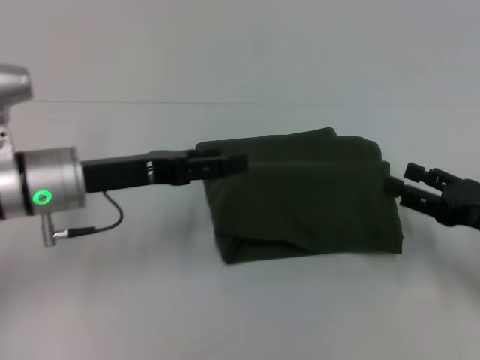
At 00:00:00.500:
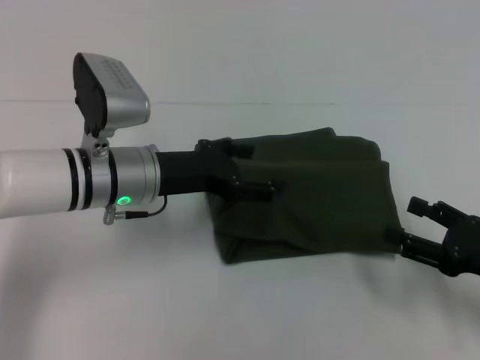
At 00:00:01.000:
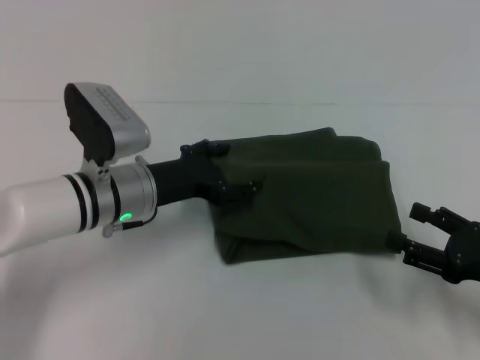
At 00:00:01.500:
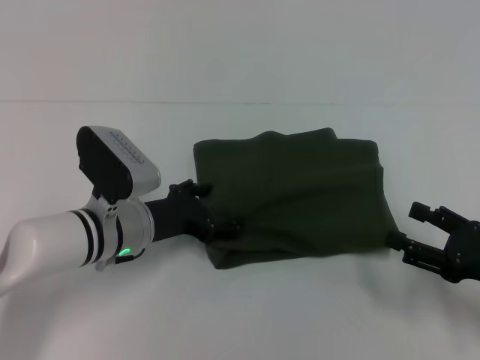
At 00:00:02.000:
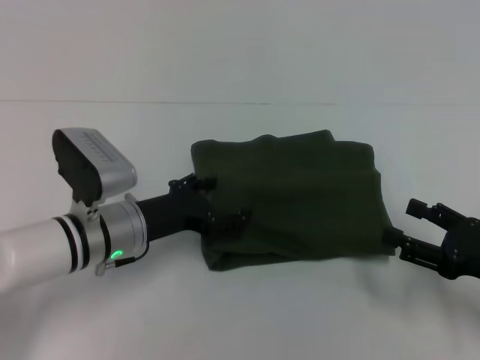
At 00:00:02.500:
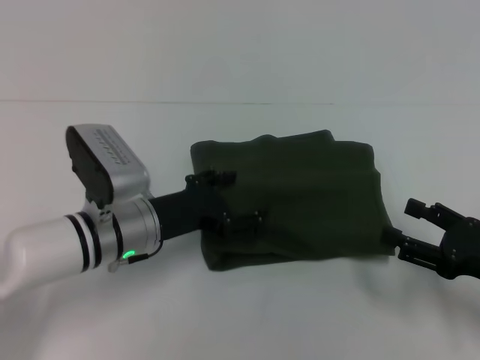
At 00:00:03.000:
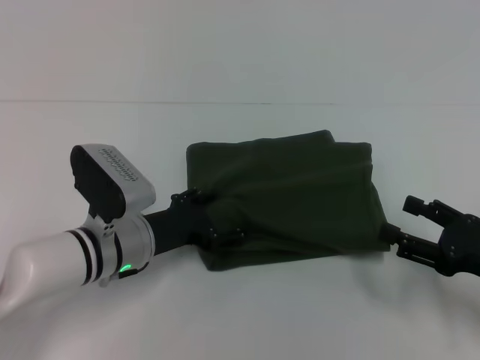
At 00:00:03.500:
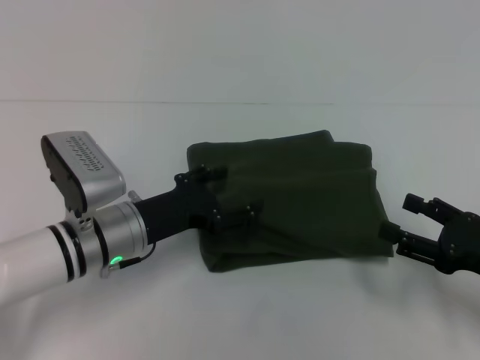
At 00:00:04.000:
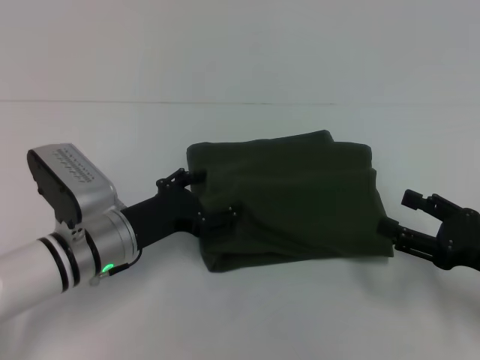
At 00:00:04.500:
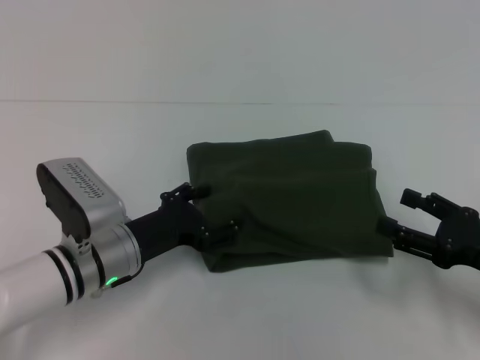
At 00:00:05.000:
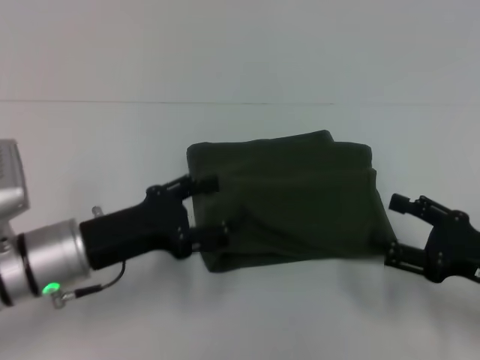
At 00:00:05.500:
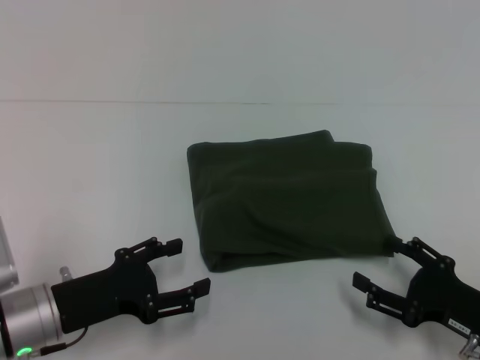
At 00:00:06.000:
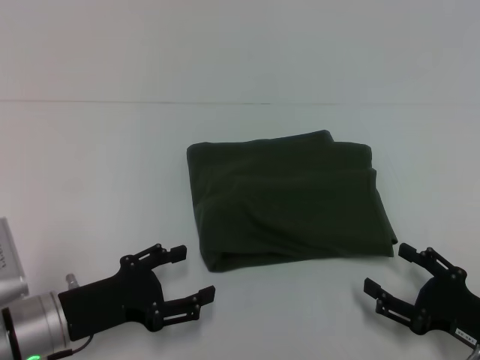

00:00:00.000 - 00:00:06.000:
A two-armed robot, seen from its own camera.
00:00:00.000 - 00:00:02.000: The left gripper moves downward, roughly 10 cm.
00:00:02.000 - 00:00:04.000: The grippers stay close to where they were, moving slightly.
00:00:04.000 - 00:00:06.000: The right gripper goes roughly 10 cm downward and backward, while the left gripper travels backward and to the left by roughly 10 cm.
